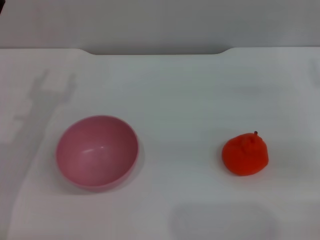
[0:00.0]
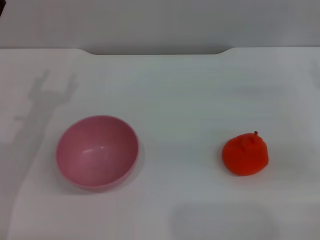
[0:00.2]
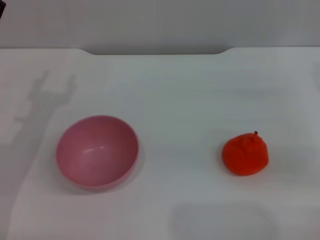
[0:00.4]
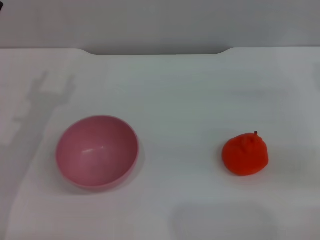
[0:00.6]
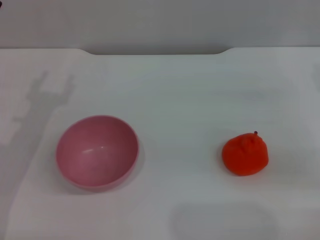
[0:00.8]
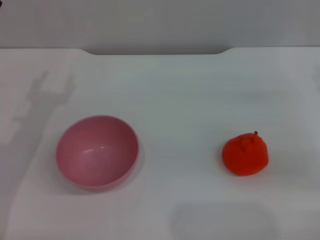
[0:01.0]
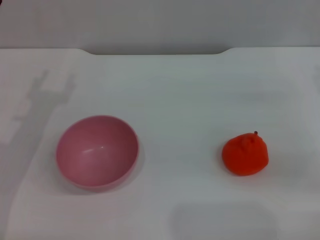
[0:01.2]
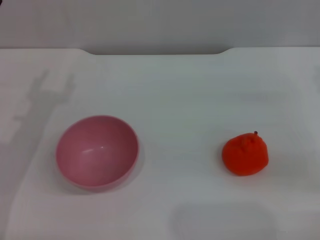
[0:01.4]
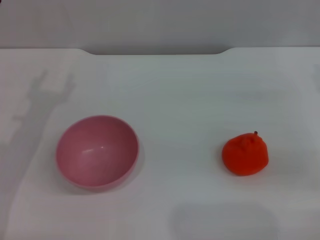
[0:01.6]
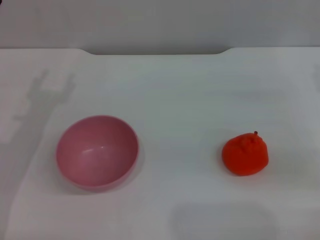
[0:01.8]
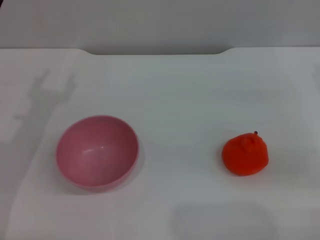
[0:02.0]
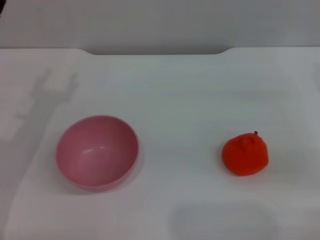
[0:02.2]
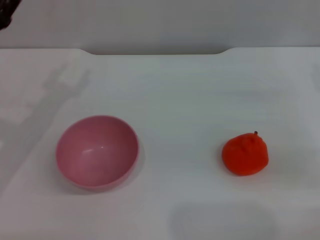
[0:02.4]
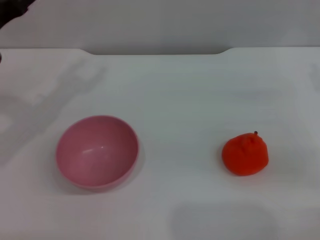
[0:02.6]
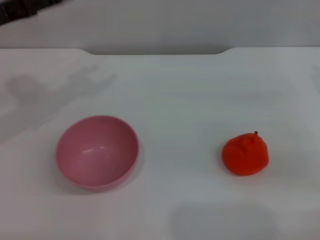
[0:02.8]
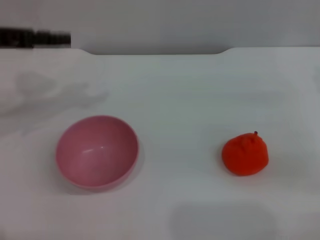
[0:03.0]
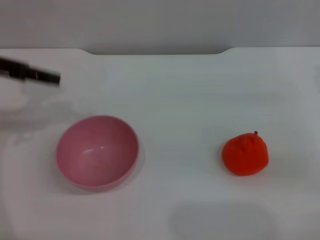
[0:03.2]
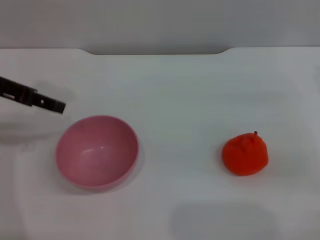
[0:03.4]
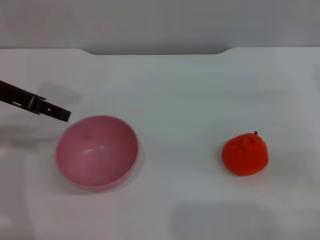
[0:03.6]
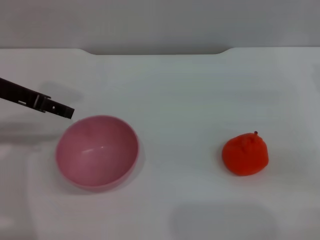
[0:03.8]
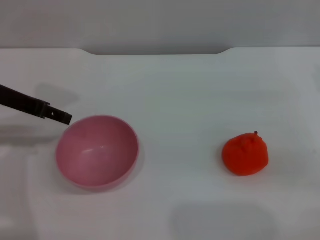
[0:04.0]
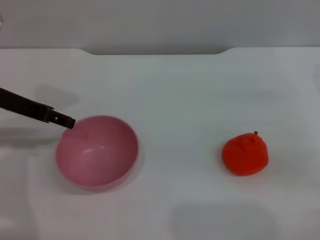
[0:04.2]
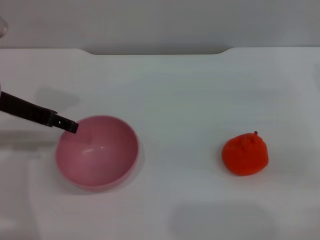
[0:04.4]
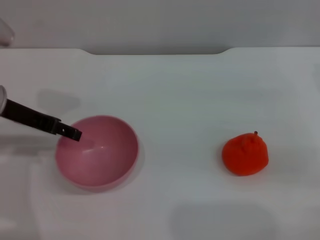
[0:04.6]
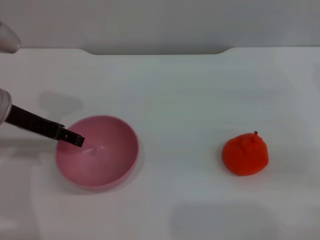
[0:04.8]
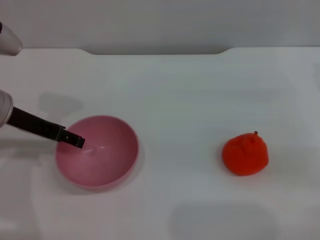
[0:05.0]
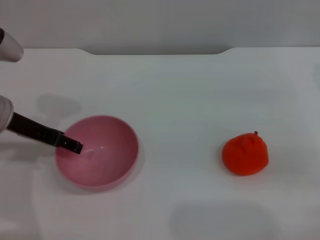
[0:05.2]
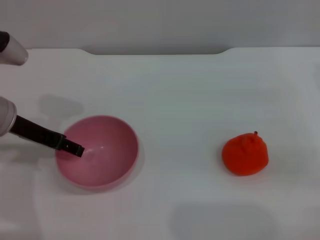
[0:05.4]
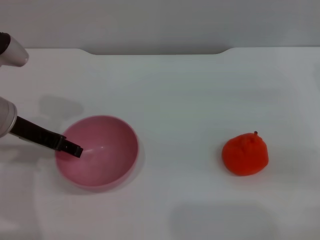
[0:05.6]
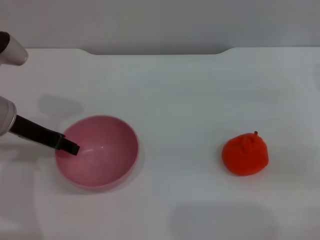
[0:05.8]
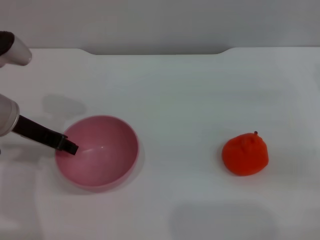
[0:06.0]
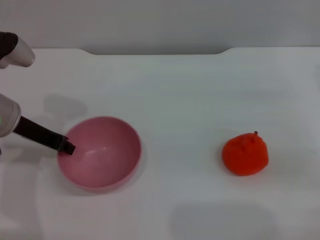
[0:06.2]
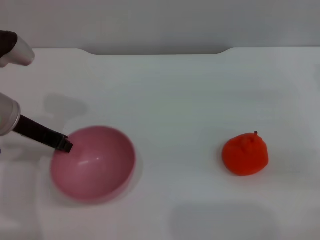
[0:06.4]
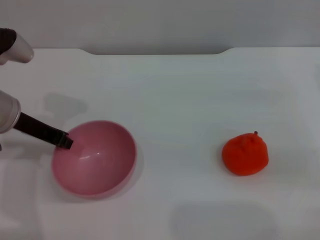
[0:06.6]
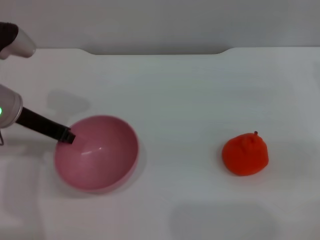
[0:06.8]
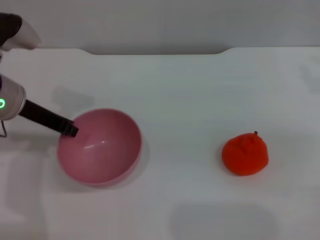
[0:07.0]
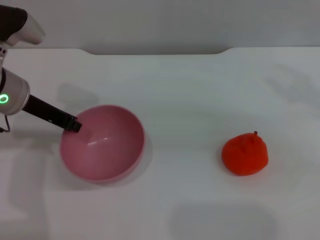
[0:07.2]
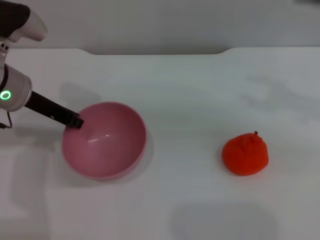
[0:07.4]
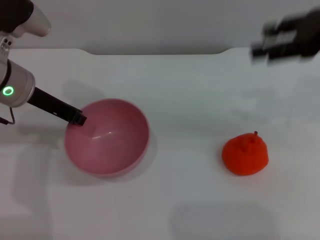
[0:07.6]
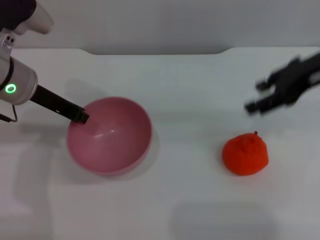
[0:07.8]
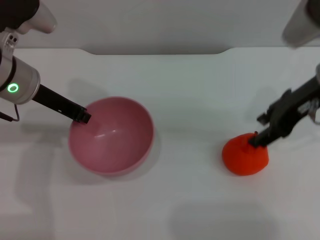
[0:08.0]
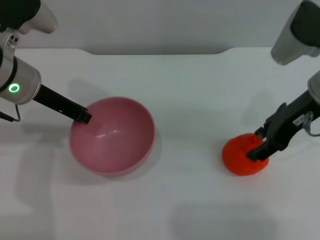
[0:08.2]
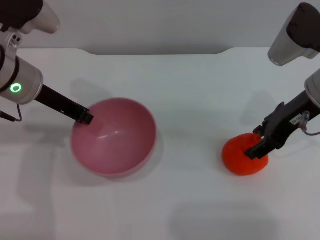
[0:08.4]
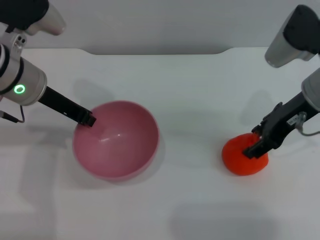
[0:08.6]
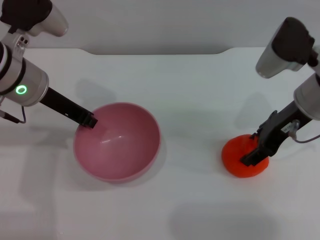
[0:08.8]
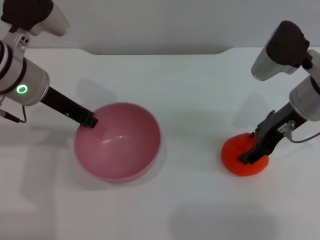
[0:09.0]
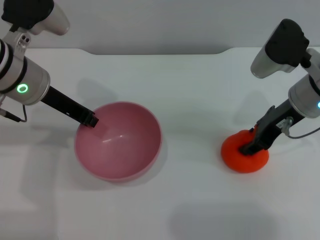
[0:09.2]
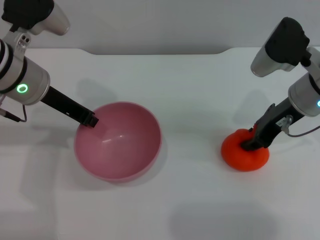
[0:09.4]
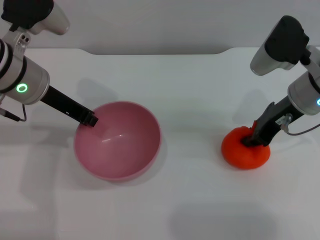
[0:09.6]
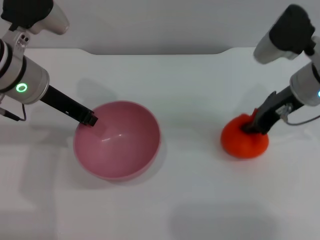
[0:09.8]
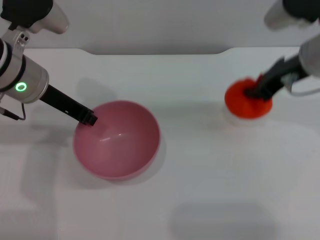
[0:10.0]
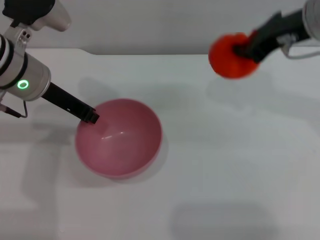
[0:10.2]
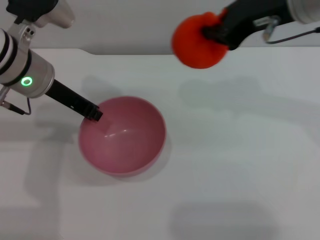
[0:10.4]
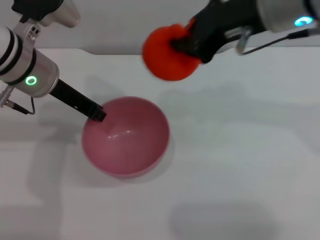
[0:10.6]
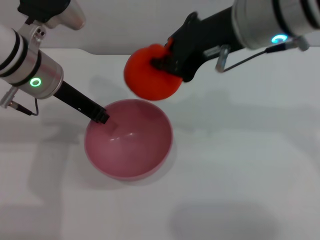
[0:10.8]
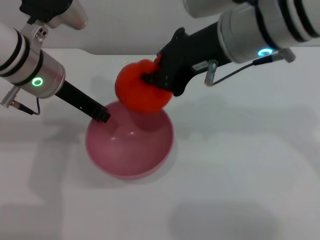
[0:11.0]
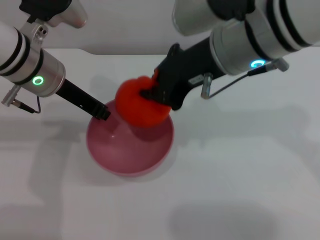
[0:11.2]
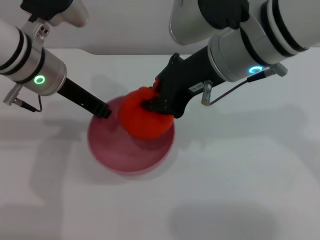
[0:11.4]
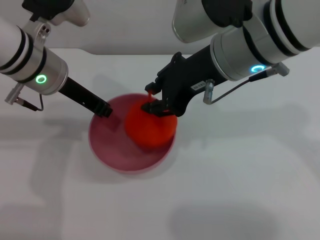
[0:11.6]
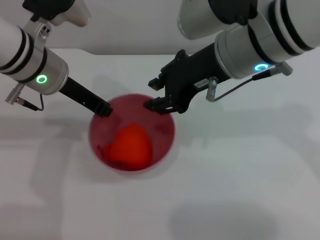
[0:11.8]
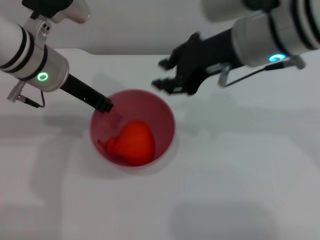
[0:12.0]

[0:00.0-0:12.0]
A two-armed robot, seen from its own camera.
Task of the whole recording: put the orange into the pink bowl and pour it out repeatedly.
Step, 0:00.0 to 0:07.6: Pick up the bowl with the left gripper.
Step, 0:07.8 to 0:10.2: Pick up the orange with the right gripper.
0:01.6 to 0:03.0: The left gripper travels upward and forward by about 15 cm.
0:03.0 to 0:04.4: The left gripper changes place by some 5 cm.
0:04.4 to 0:06.0: The grippers make only small movements.
0:06.0 to 0:07.6: The left gripper closes, while the right gripper heads upward, covering some 15 cm.
0:07.6 to 0:09.0: The right gripper moves downward and to the left, some 15 cm.
0:09.0 to 0:10.4: The right gripper shifts approximately 15 cm upward, and closes up.
0:10.4 to 0:12.0: The right gripper changes place by approximately 5 cm, and opens up.

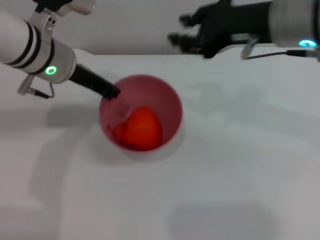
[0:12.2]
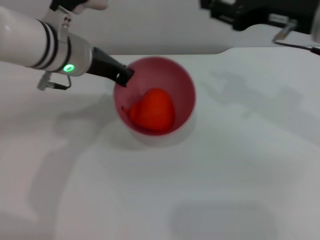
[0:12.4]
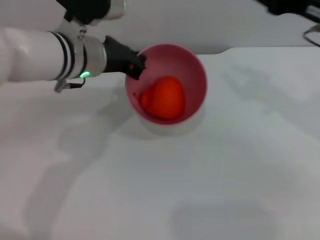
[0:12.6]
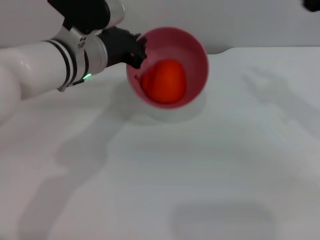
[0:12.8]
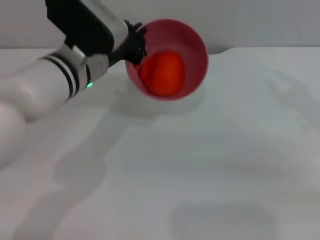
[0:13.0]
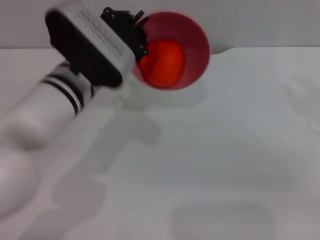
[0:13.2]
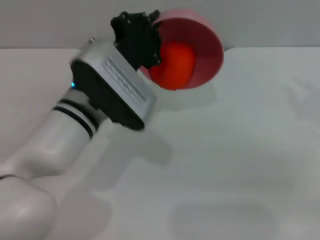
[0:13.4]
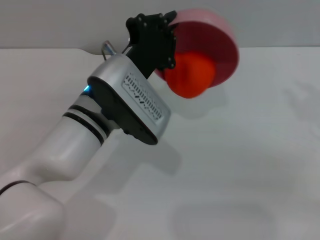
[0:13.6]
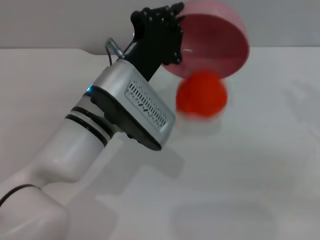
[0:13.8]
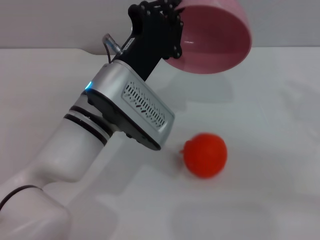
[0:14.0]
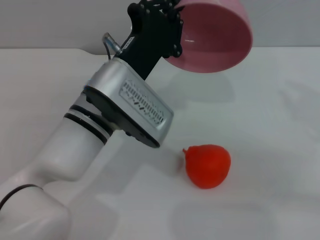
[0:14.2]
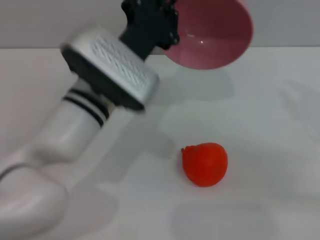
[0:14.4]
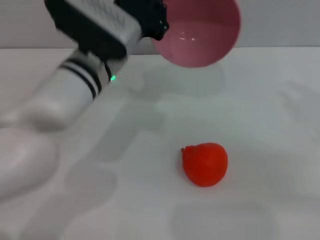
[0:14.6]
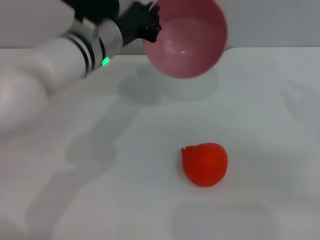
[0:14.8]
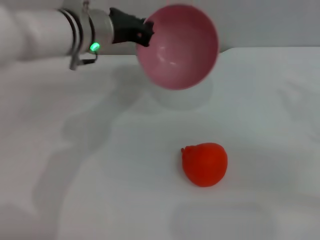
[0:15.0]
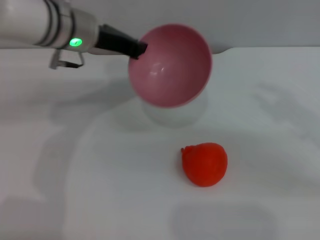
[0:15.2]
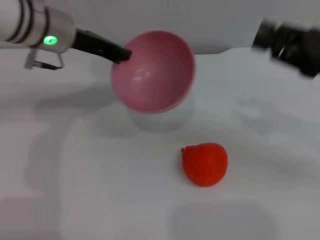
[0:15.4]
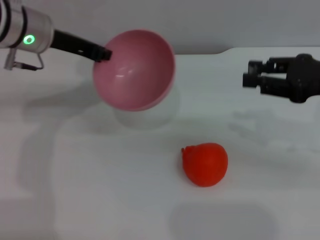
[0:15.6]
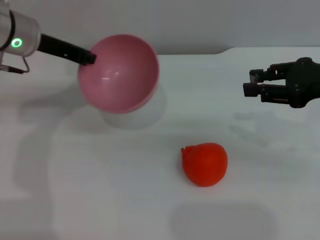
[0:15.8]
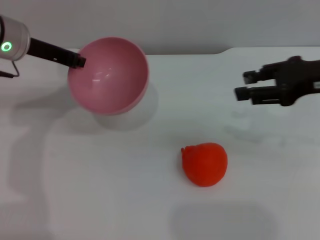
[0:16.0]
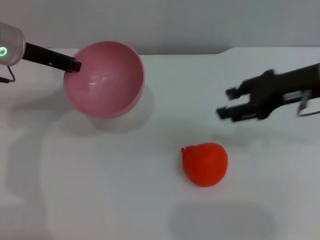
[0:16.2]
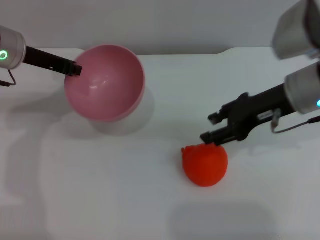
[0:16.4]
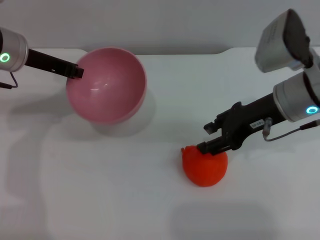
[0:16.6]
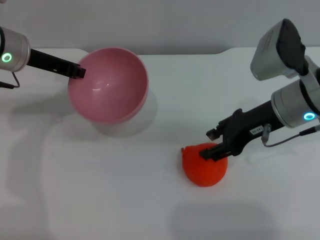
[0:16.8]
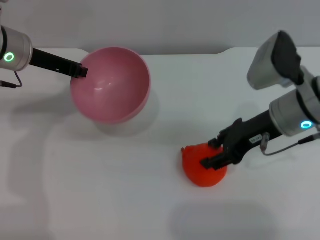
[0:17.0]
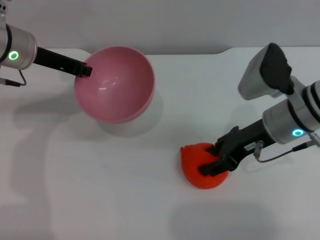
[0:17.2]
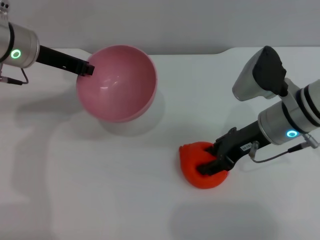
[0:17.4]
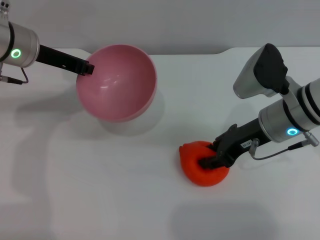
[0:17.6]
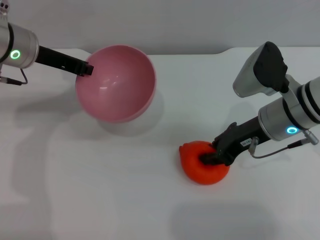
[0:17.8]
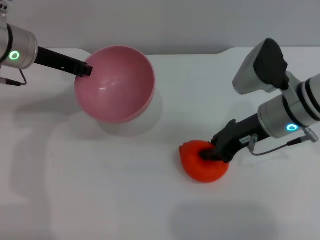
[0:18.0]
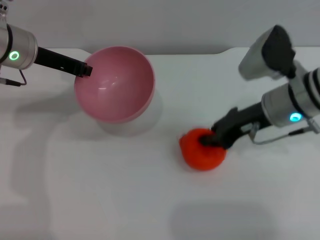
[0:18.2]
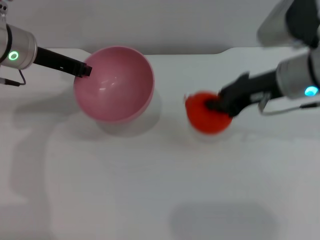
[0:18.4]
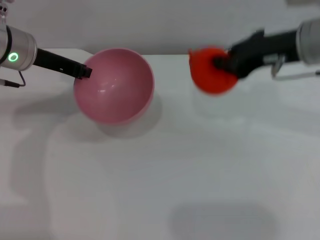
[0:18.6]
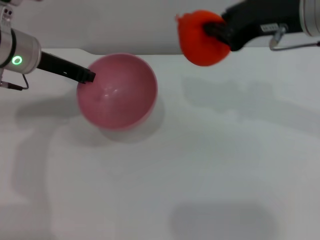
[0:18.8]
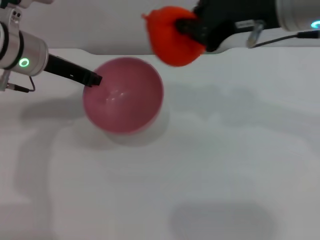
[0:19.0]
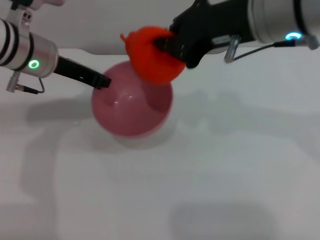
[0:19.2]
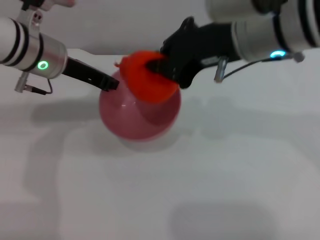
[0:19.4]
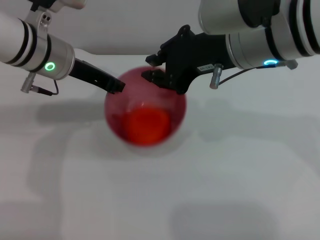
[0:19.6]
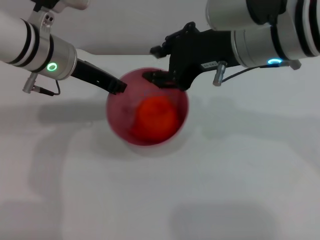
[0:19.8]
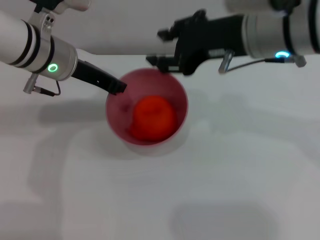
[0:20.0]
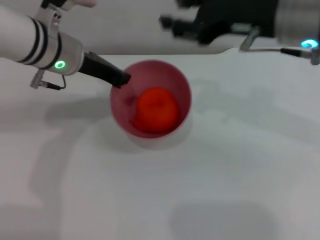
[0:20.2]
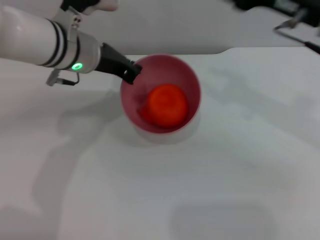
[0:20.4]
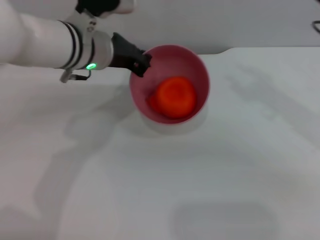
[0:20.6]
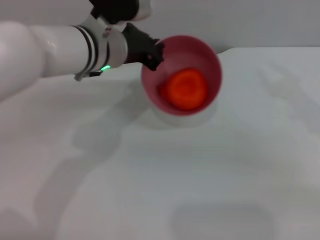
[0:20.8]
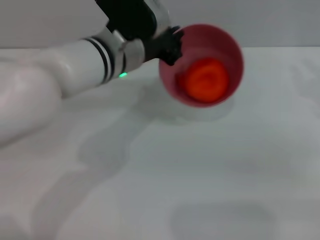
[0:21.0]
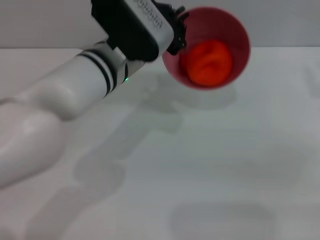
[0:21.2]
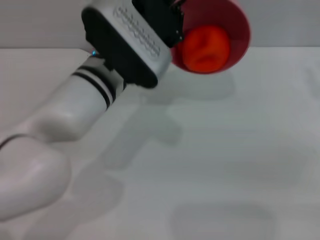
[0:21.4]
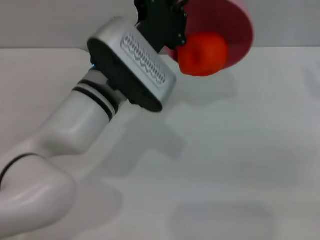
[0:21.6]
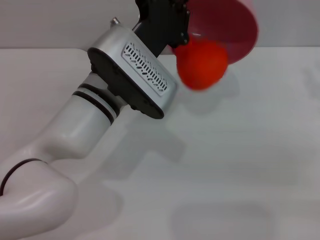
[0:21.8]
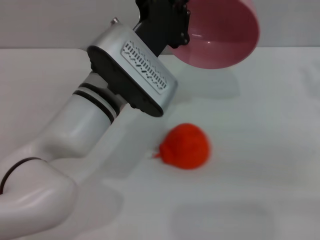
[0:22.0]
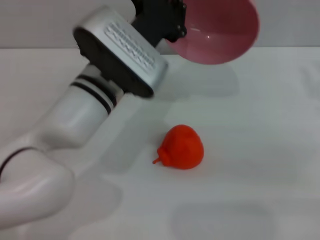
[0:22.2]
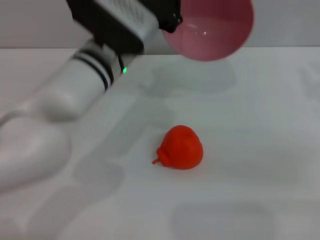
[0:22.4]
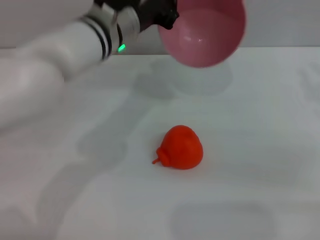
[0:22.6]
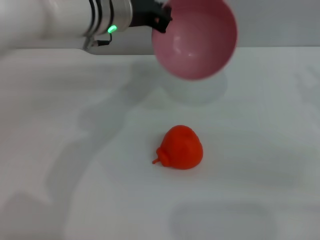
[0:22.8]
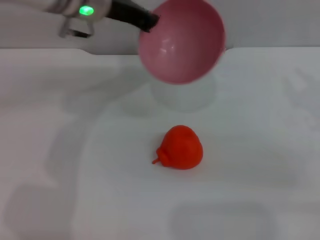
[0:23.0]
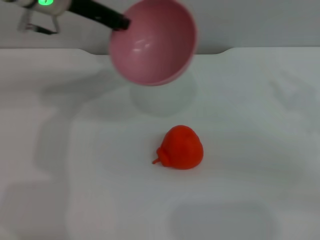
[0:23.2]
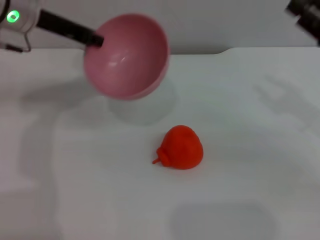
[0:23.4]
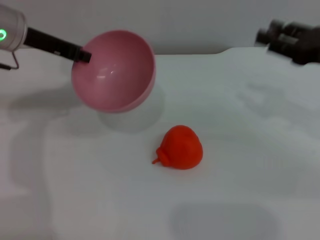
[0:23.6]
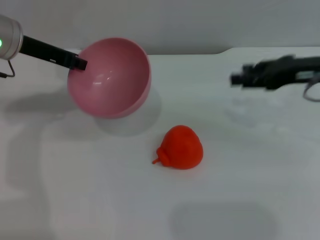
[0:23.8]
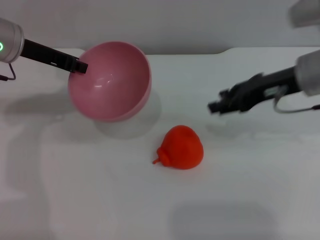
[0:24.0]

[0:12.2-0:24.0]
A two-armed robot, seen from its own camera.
Task of the whole recording: put the orange into the pink bowl and pour it out repeatedly.
Step, 0:12.8 to 0:14.8: Pour the orange out of the bowl.
Step, 0:15.2 to 0:18.2: Pick up the orange with the right gripper.
Step, 0:18.6 to 0:20.4: Place the orange into the bowl.
Step, 0:20.6 to 0:22.4: Pour the orange out of the bowl.
0:12.2 to 0:13.6: The left gripper shifts roughly 15 cm backward, to the right and downward; the right gripper moves to the right and backward, roughly 15 cm.
0:13.6 to 0:15.2: The left gripper travels forward, upward and to the left by some 15 cm.
0:15.2 to 0:16.6: The left gripper moves to the left, about 10 cm. The right gripper is displaced to the left and forward by roughly 10 cm.
0:16.6 to 0:18.2: The right gripper closes.
0:18.2 to 0:19.6: The left gripper moves to the right, approximately 5 cm. The right gripper is displaced upward and to the left by roughly 15 cm.
0:19.6 to 0:21.0: The left gripper shifts some 10 cm to the right, while the right gripper is displaced to the right and downward by some 20 cm, and opens.
0:22.6 to 0:24.0: The left gripper heads to the left, covering some 15 cm; the right gripper heads to the left and forward, covering about 10 cm.
